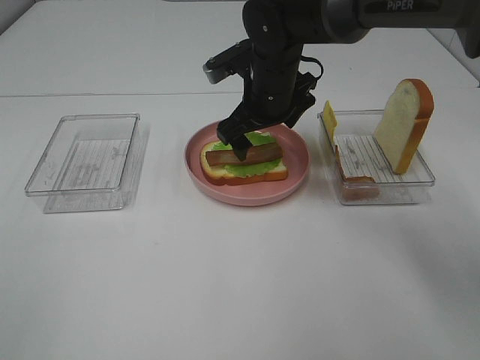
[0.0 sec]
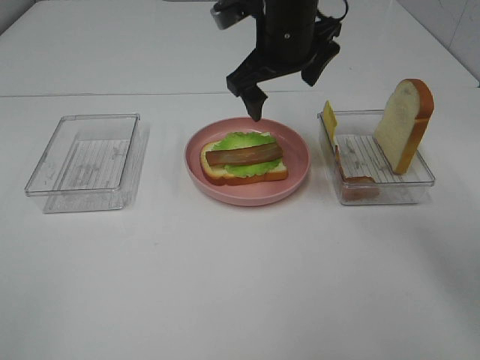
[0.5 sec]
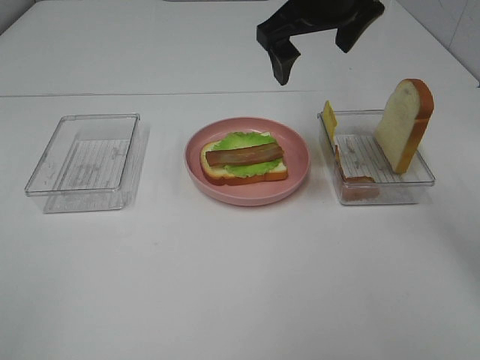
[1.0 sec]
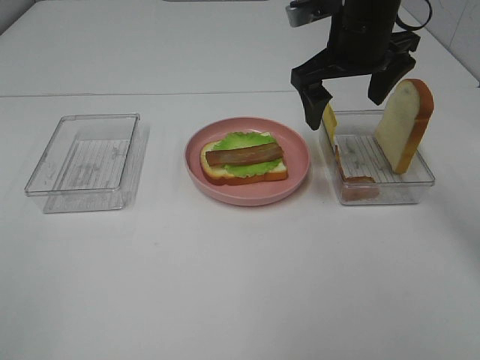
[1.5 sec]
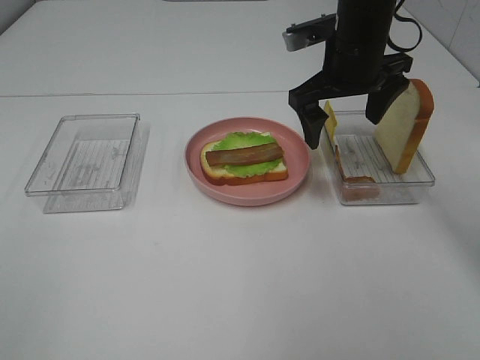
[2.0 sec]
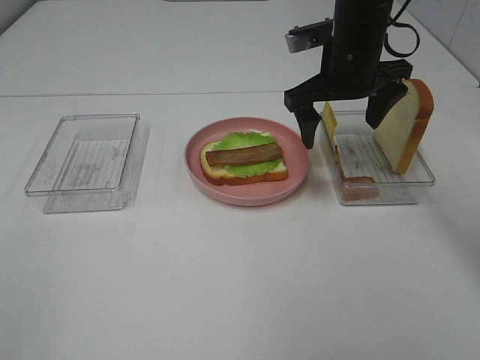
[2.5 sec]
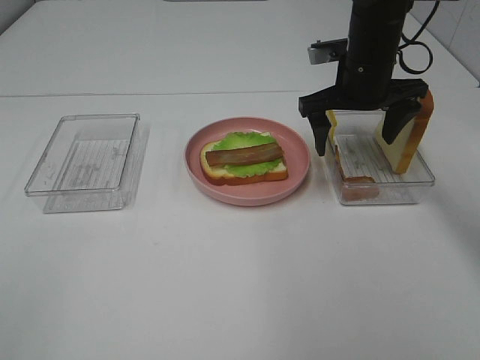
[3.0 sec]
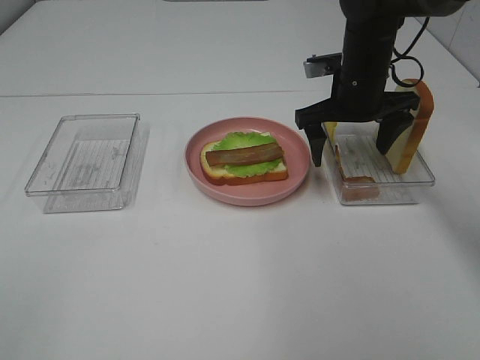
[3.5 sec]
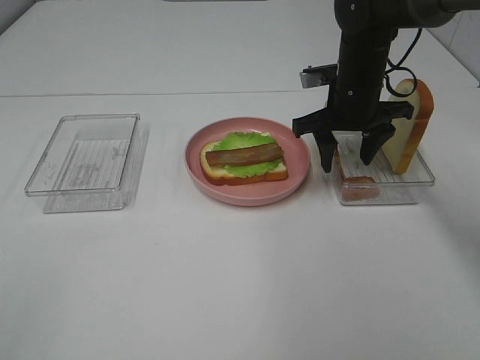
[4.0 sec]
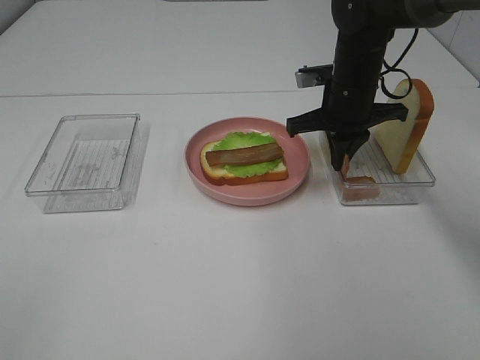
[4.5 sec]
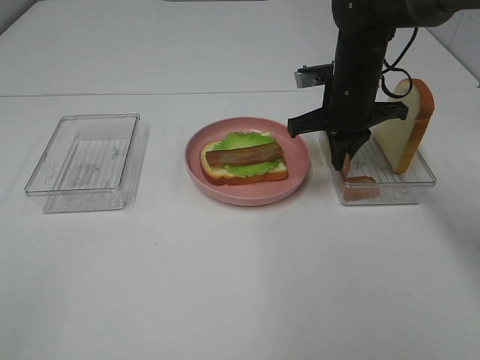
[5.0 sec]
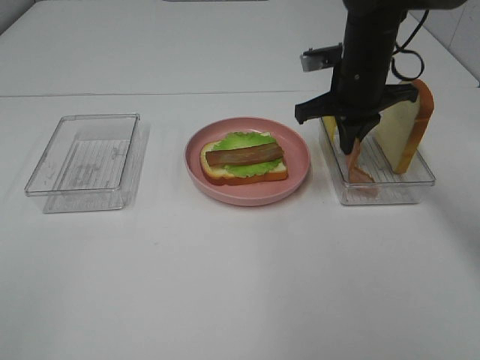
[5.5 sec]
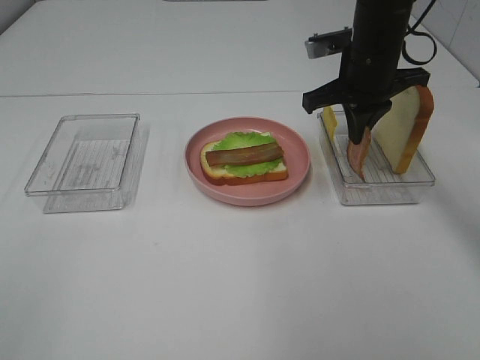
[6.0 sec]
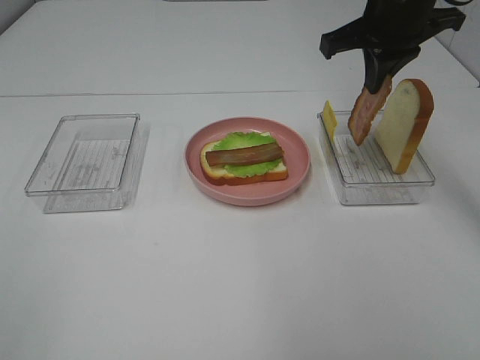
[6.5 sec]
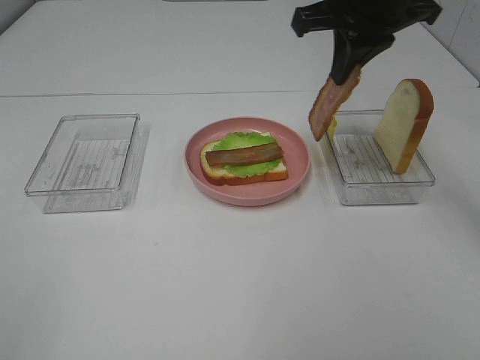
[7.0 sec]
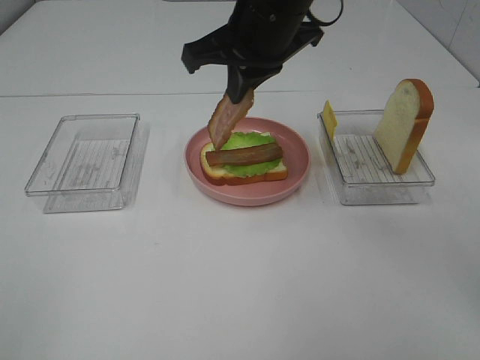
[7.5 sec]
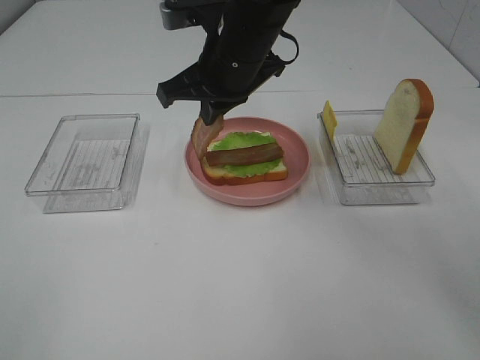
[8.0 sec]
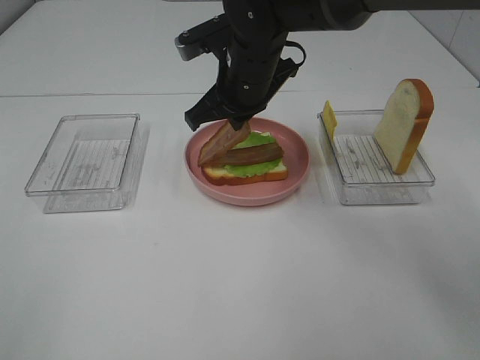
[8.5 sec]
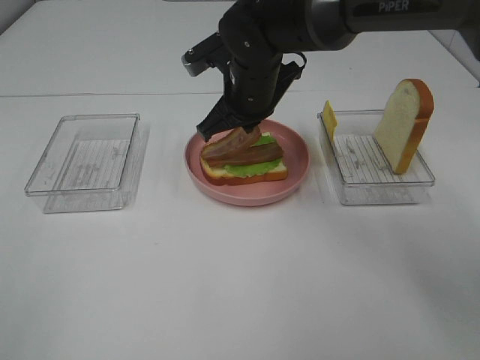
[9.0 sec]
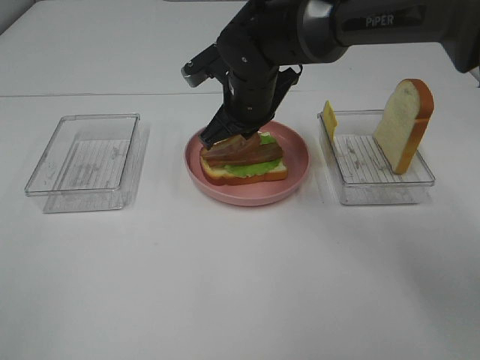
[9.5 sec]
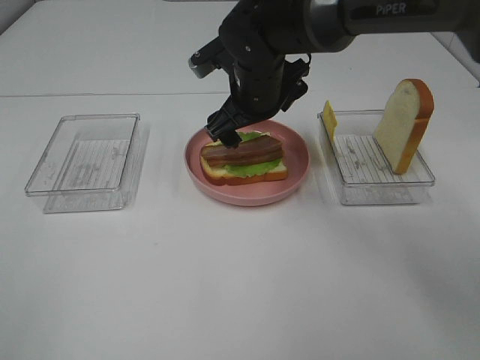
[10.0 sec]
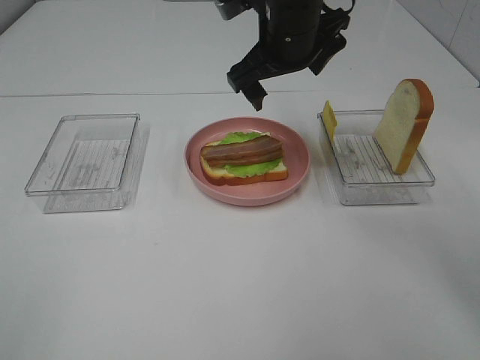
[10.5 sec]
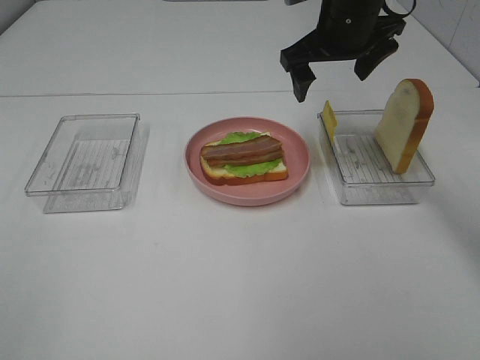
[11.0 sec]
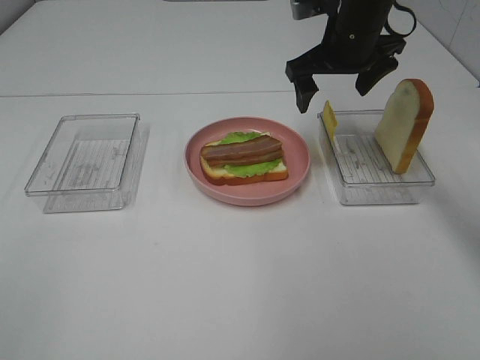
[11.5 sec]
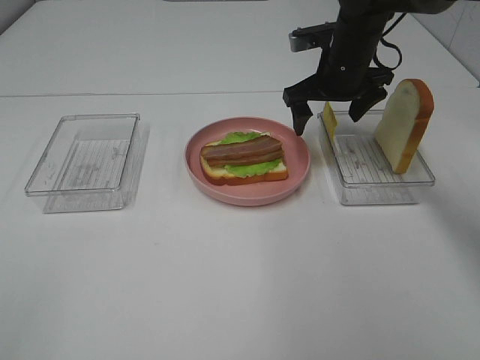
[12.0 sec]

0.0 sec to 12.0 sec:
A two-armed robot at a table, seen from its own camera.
Task of the whole recording: Make sandwiches.
Step, 0.5 sec to 5.0 sec: Right hand:grab the bacon.
Step, 5.5 sec to 10.0 sec: Right hand:place bacon on bacon.
0.0 sec to 2.0 sec: The right gripper shifts about 10 cm to the right and upward.
2.0 sec to 4.0 sec: The right gripper shifts approximately 5 cm downward, and closes its fingers.
4.0 sec to 6.0 sec: The right gripper goes approximately 5 cm upward, and closes.
6.0 sec to 8.0 sec: The right gripper is displaced to the left by some 15 cm.
8.0 sec to 10.0 sec: The right gripper ends up approximately 5 cm from where it was, and opens.
10.0 sec to 12.0 sec: The right gripper travels to the right and forward by some 15 cm.

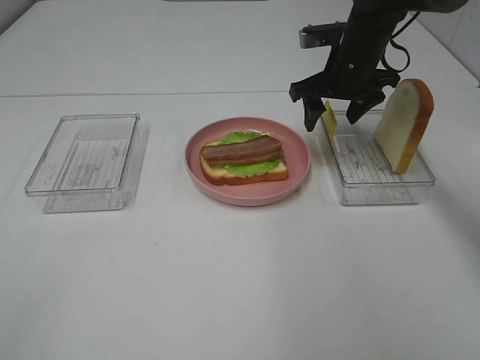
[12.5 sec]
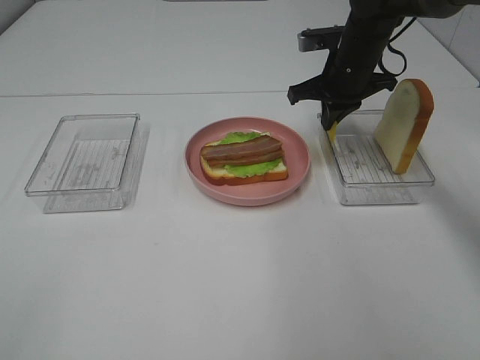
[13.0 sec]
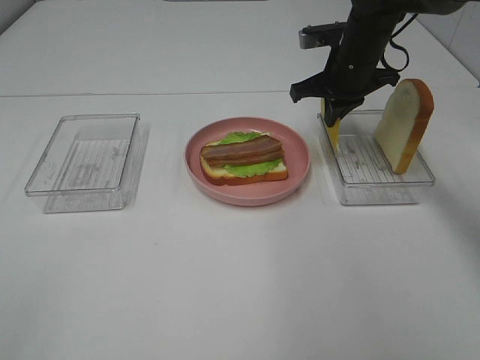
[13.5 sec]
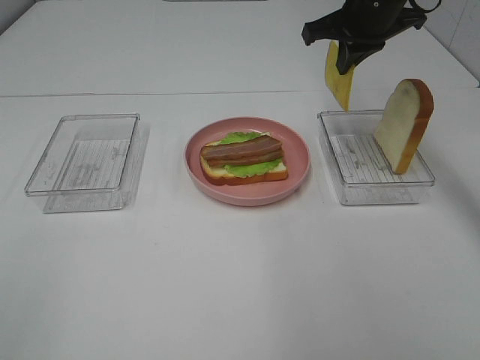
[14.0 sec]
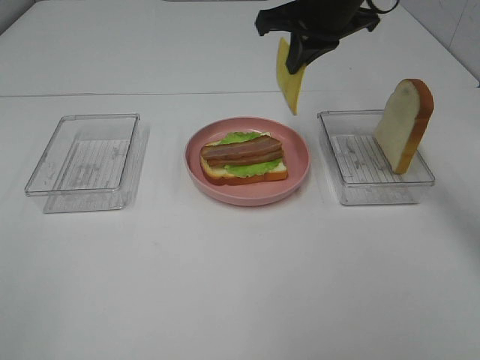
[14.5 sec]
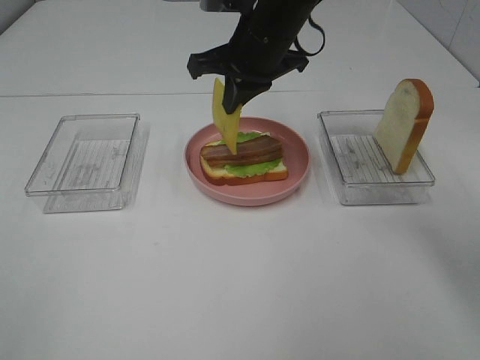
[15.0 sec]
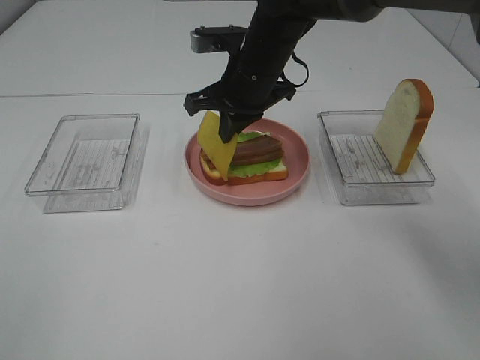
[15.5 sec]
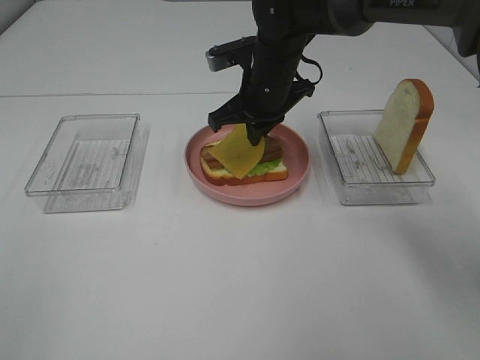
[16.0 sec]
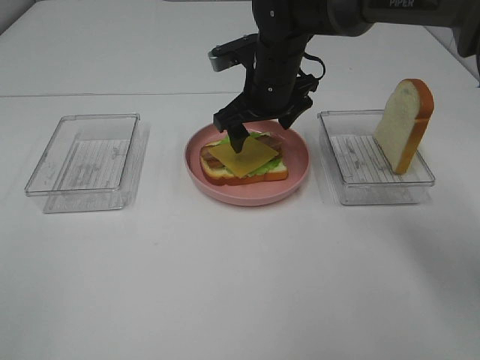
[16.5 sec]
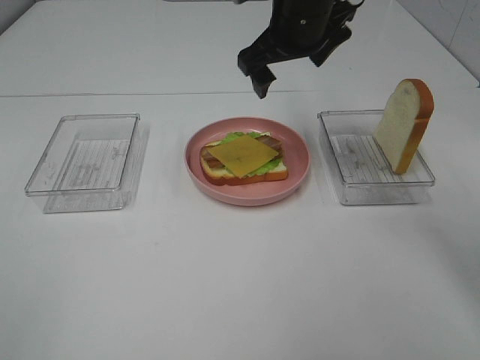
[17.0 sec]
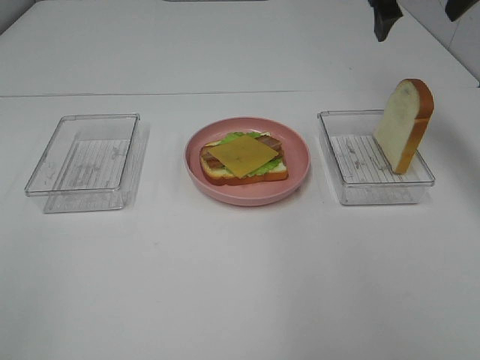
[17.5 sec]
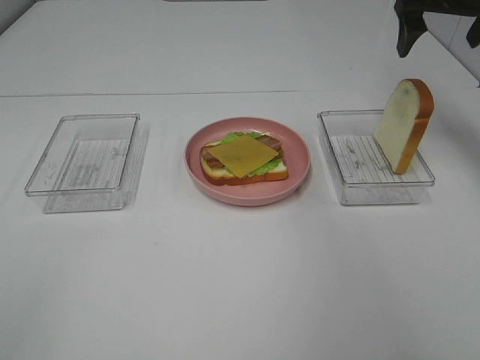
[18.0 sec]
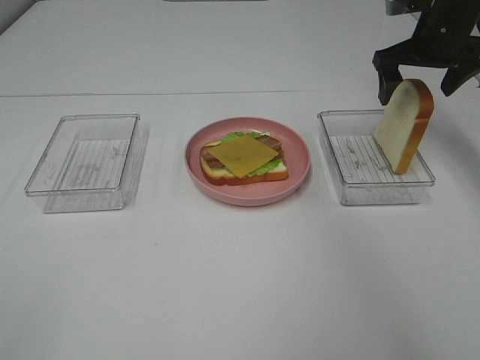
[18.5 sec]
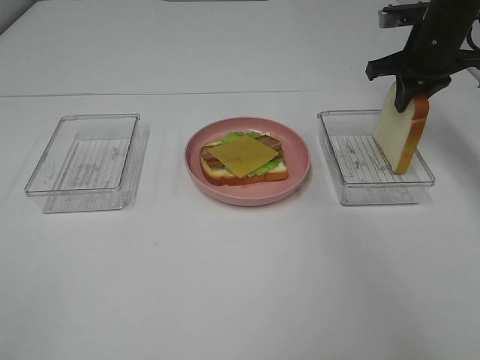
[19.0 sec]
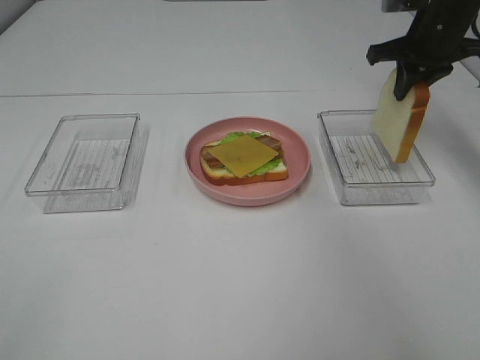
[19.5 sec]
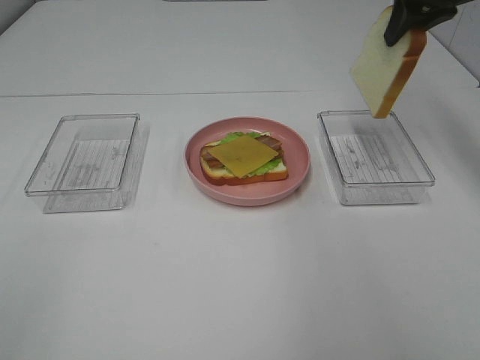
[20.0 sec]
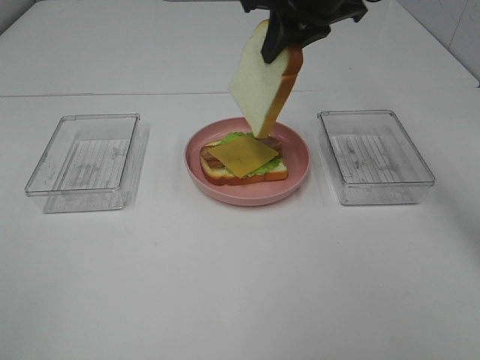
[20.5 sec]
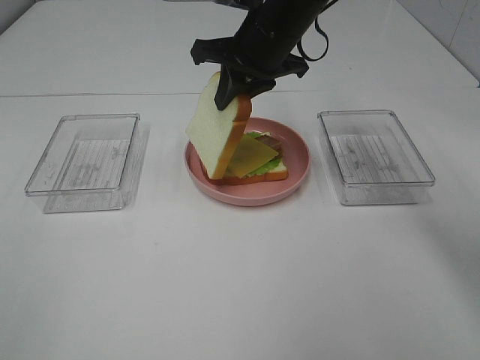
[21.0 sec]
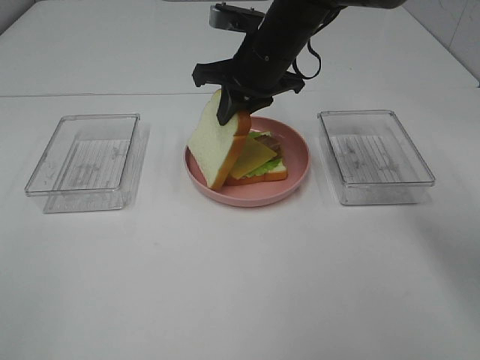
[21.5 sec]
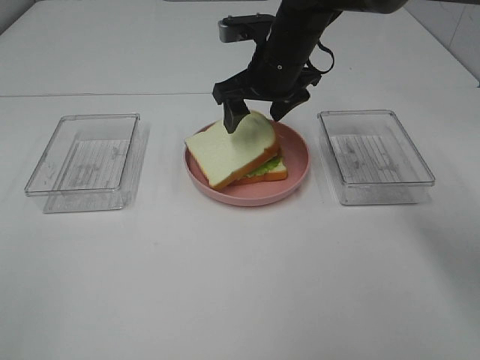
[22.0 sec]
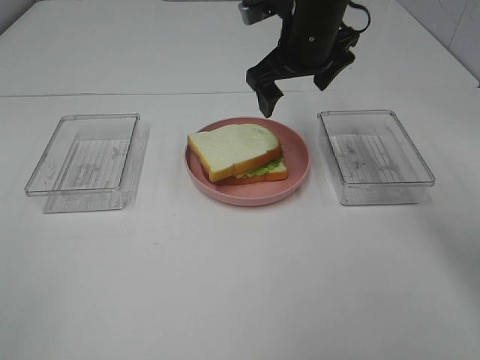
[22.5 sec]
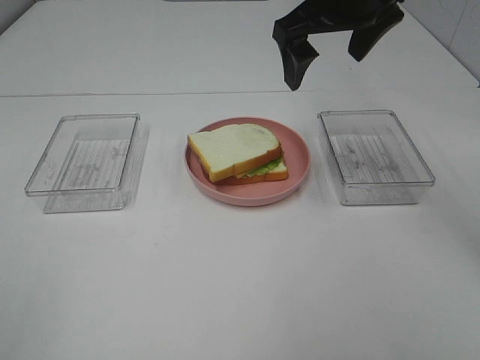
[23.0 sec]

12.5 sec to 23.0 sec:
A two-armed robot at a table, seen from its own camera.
Task of the whole recording: Make sandwiches.
Step, 13.5 sec to 16.5 sec: Right hand:place the cheese slice on top of the bacon.
Step, 17.0 sec to 19.0 sec: Right hand:grab the bread slice.
Step, 19.5 sec to 22.0 sec: Right hand:place bacon on bacon.
12.5 sec to 14.5 sec: The right gripper goes some 10 cm upward and to the left, and closes.
14.5 sec to 16.5 sec: The right gripper heads downward and to the left, covering approximately 10 cm, and opens its fingers.
16.5 sec to 19.0 sec: The right gripper travels to the right by roughly 20 cm, and closes its fingers.
19.0 sec to 21.0 sec: The right gripper travels to the left by roughly 20 cm.
21.0 sec to 23.0 sec: The right gripper shifts some 10 cm upward and to the right, and opens its fingers.

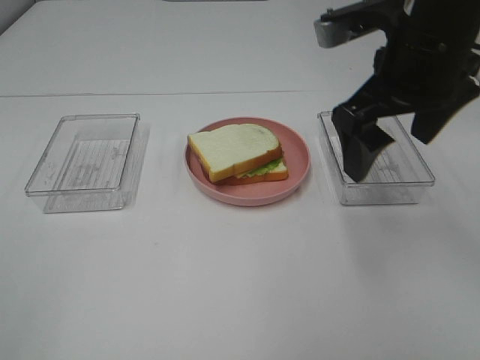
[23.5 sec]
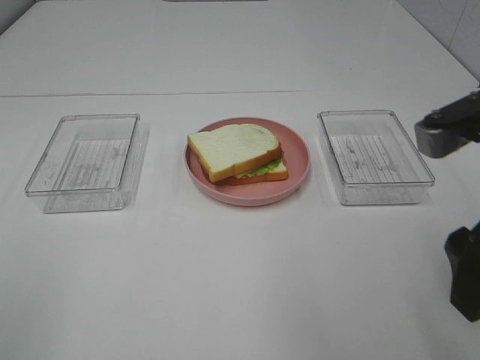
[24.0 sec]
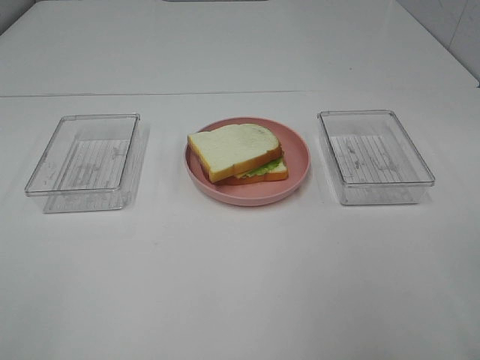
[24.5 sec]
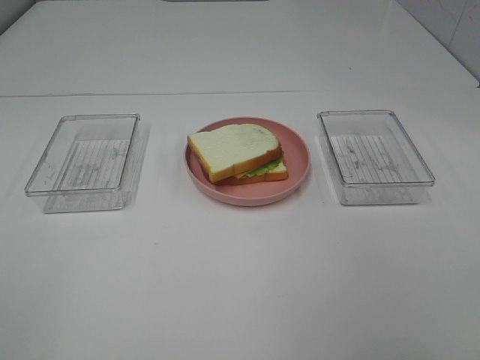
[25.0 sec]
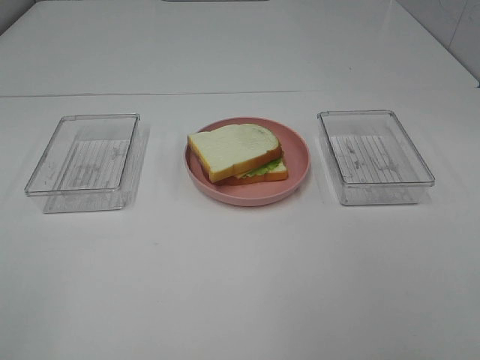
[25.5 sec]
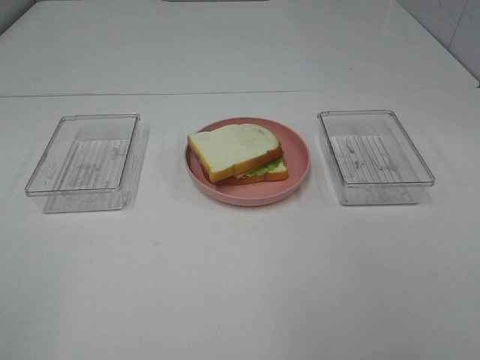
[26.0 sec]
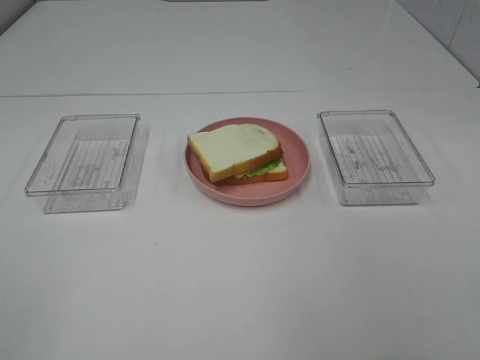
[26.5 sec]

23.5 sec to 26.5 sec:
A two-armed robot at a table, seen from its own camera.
Task of the whole recording: Make sandwiches.
23.5 sec to 25.0 sec: The right gripper is displaced backward and to the right by about 30 cm.
